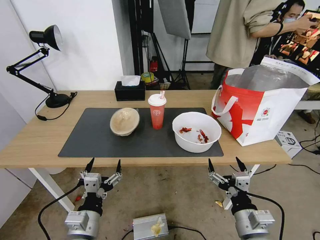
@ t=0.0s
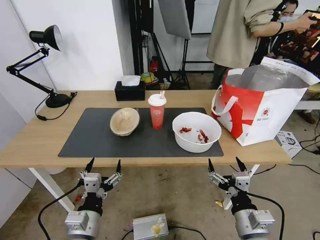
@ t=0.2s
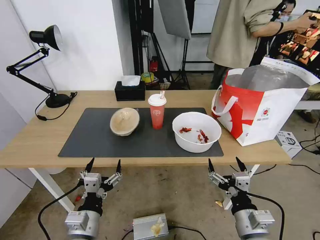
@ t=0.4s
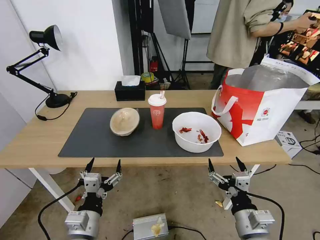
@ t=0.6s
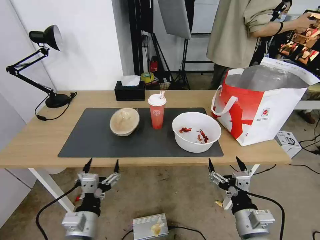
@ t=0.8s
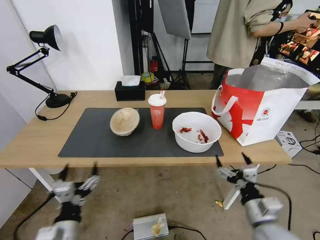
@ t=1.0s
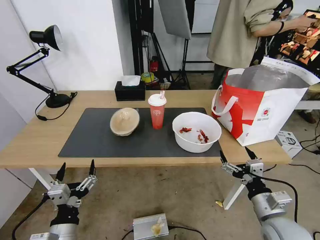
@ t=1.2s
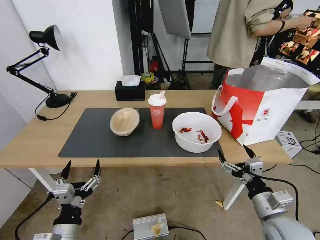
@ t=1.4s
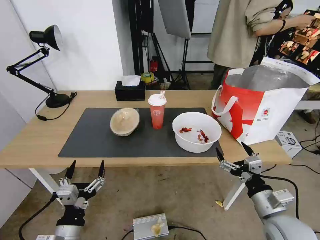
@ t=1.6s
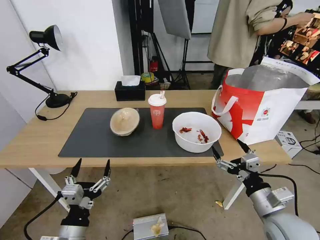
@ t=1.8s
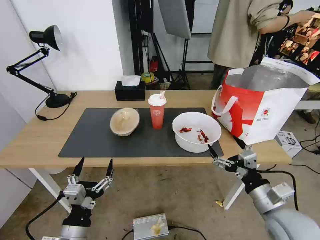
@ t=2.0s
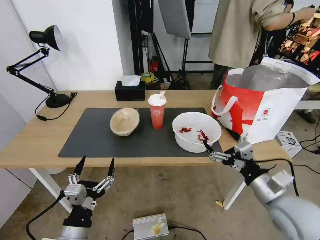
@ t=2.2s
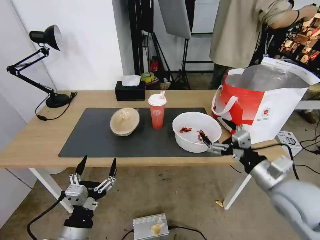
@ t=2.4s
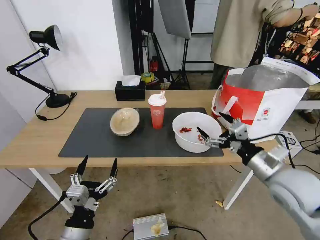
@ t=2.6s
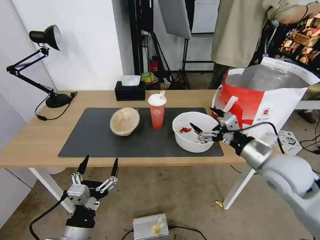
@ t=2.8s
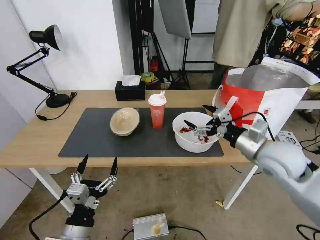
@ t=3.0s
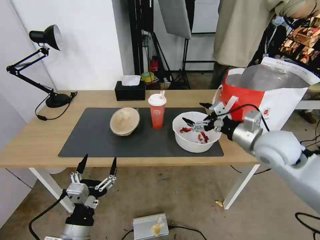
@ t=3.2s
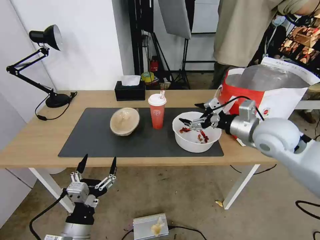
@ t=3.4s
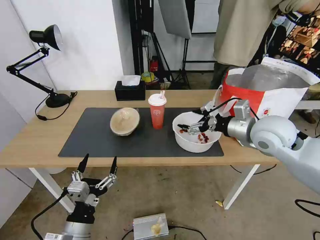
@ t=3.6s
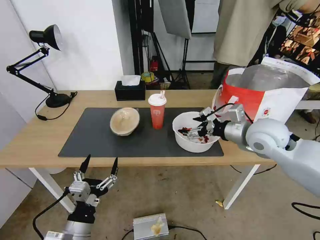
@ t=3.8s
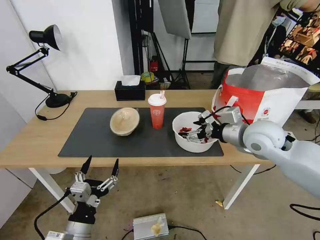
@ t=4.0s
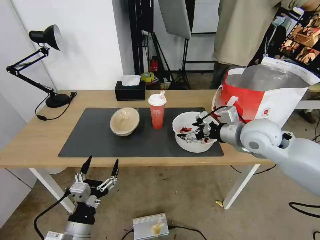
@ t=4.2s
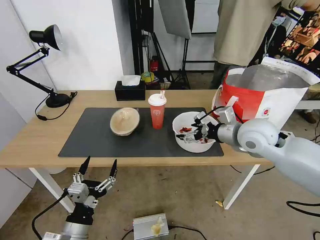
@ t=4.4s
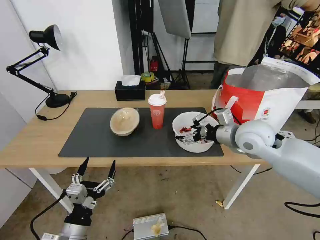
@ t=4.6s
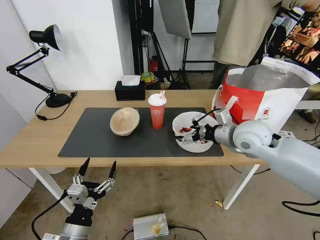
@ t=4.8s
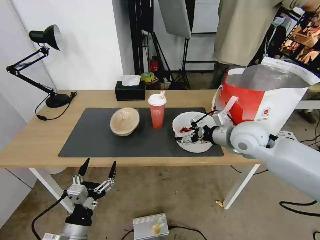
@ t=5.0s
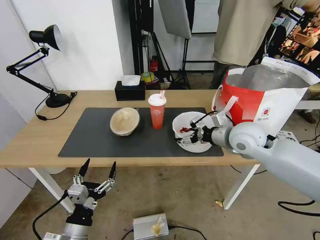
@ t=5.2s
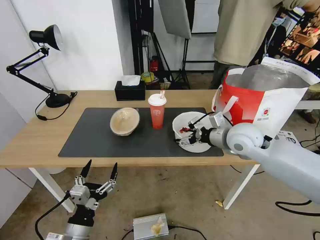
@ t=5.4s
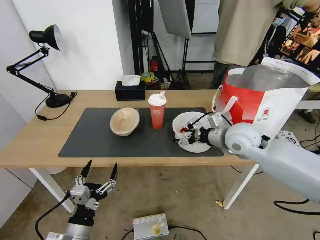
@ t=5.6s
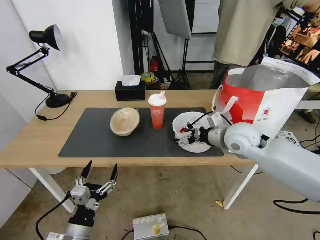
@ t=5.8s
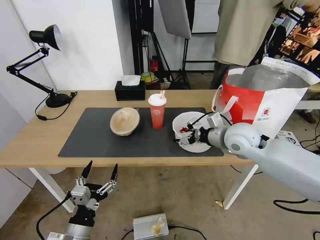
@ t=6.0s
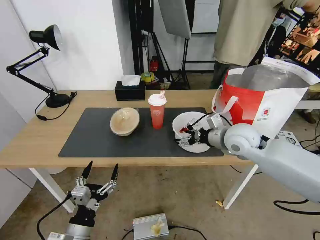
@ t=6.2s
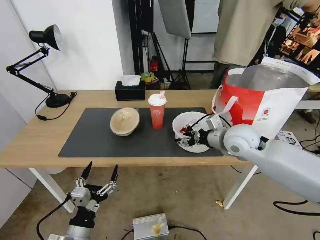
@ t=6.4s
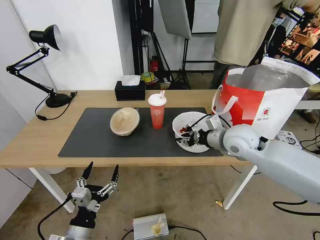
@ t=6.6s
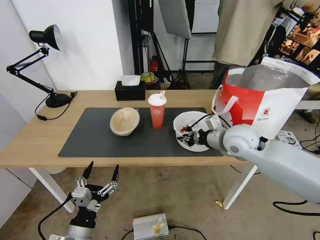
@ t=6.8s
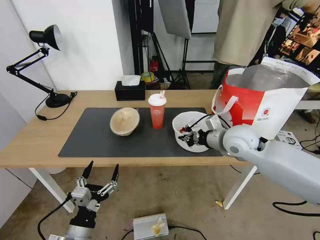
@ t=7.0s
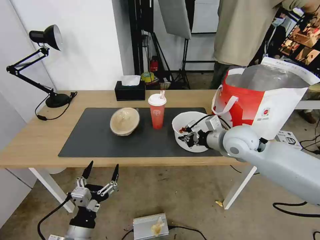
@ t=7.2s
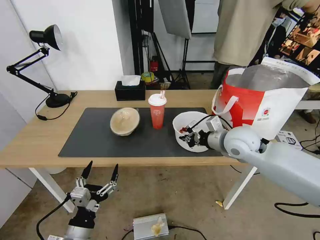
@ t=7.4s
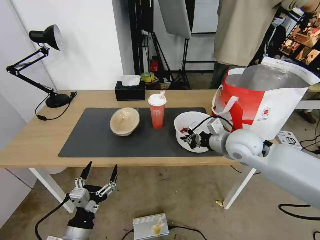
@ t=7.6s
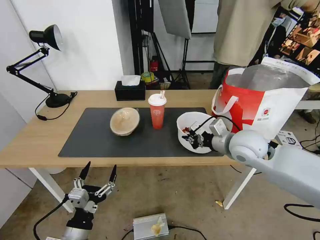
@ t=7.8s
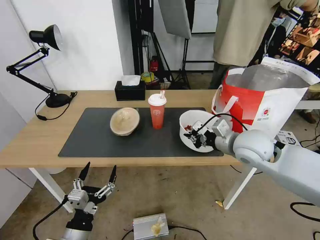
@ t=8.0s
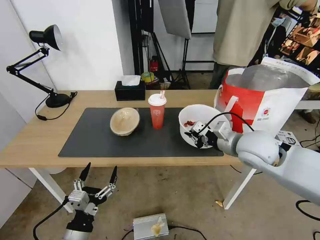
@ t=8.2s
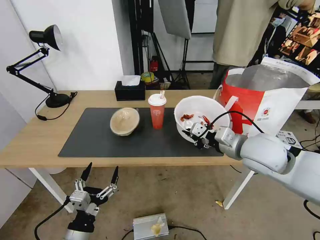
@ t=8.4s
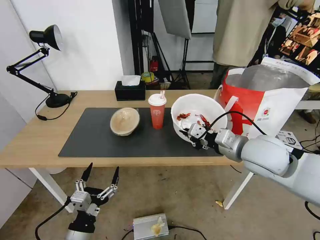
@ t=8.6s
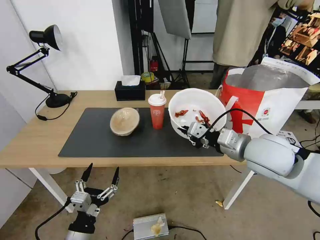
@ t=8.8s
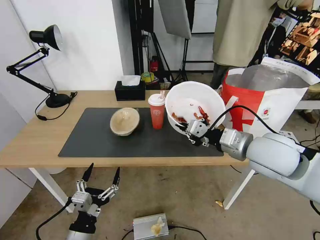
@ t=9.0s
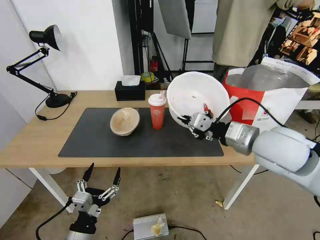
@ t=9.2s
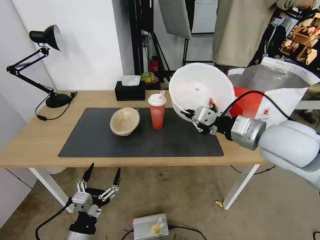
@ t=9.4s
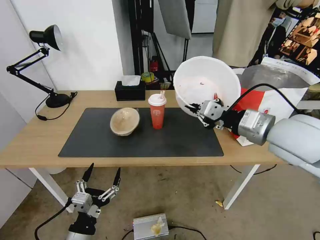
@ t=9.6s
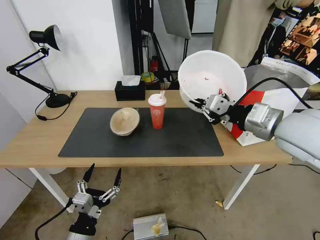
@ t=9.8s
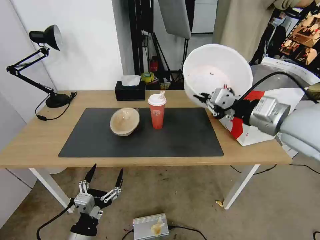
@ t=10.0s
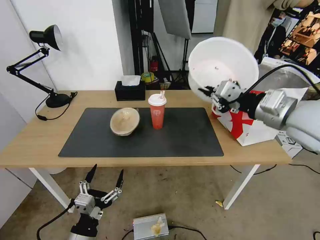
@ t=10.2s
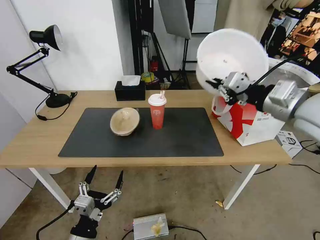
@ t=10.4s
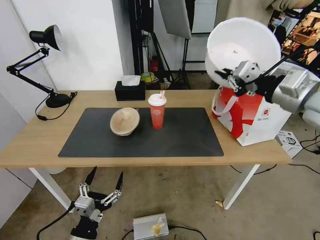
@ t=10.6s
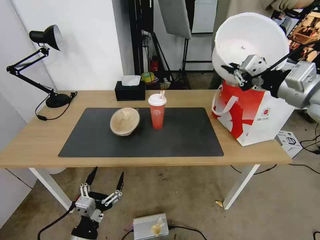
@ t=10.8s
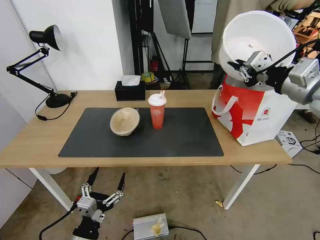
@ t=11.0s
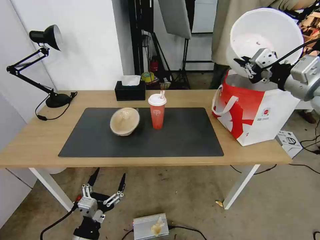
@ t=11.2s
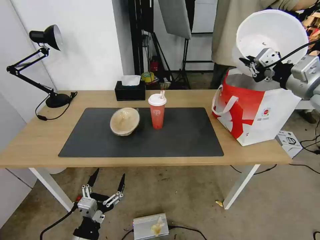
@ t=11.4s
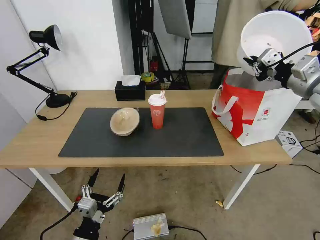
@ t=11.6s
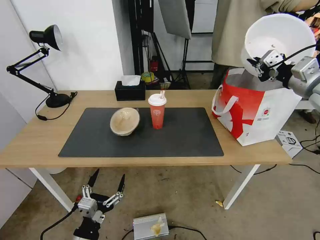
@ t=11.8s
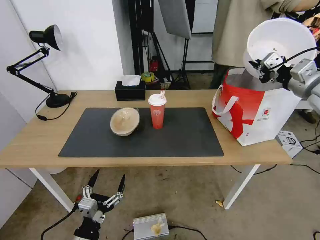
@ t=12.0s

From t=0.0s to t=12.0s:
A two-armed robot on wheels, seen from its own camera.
Task of the whole recording: Pick up the trash from the table and place it into the takeout bag.
From t=1.6s to t=3.0s: The right gripper moves forward and upward, roughly 20 cm.
From t=3.0s to t=4.4s: The right gripper shifts roughly 5 cm forward.
From t=4.4s to t=6.0s: The grippers move only a little.
From t=6.0s to t=7.6s: The right gripper closes its fingers.
From t=7.6s to t=9.0s: The right gripper shifts some 10 cm backward and upward.
From t=9.0s to t=10.4s: The right gripper moves upward and to the right, some 10 cm.
From t=10.4s to t=12.0s: The right gripper is displaced to the right and forward by about 15 cm.

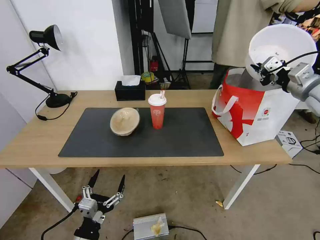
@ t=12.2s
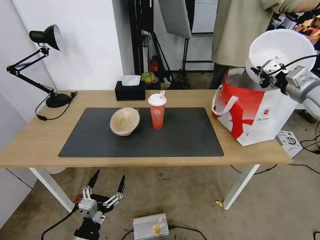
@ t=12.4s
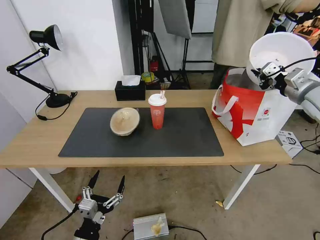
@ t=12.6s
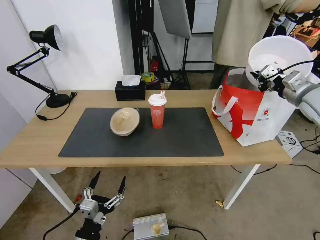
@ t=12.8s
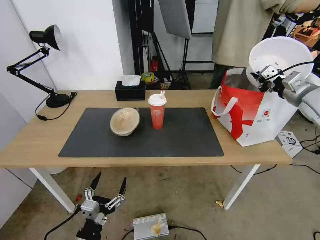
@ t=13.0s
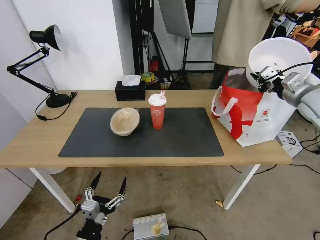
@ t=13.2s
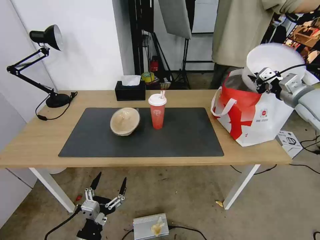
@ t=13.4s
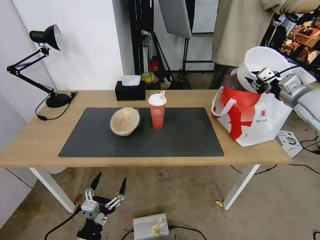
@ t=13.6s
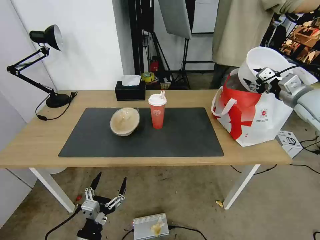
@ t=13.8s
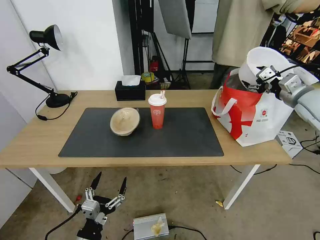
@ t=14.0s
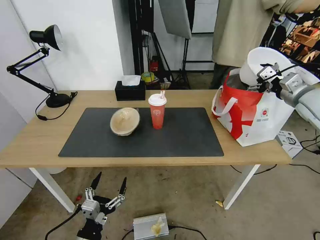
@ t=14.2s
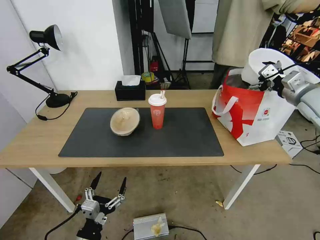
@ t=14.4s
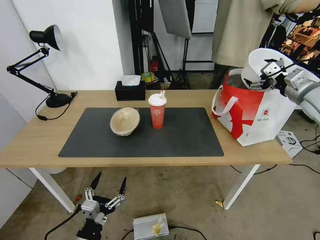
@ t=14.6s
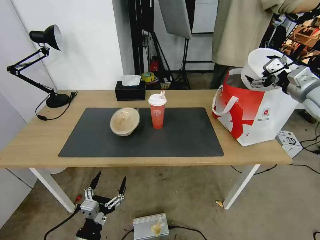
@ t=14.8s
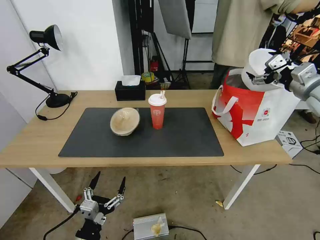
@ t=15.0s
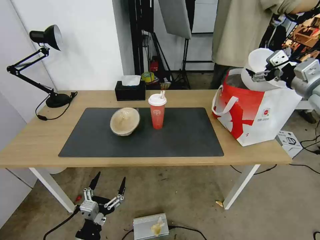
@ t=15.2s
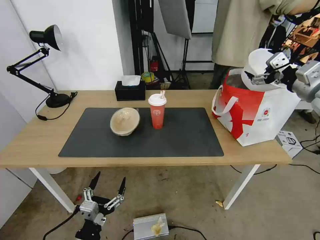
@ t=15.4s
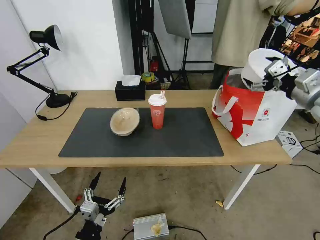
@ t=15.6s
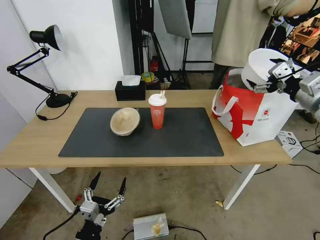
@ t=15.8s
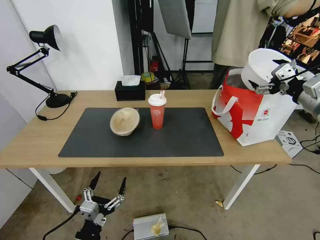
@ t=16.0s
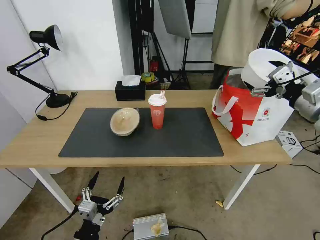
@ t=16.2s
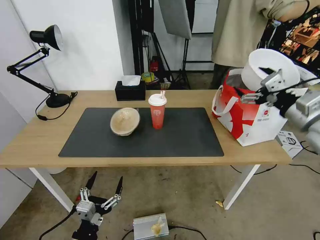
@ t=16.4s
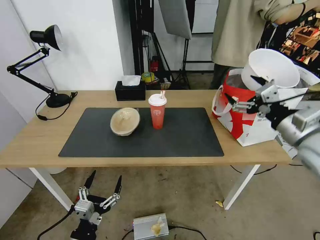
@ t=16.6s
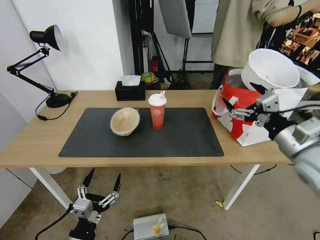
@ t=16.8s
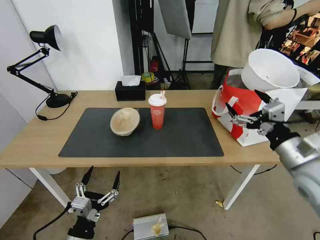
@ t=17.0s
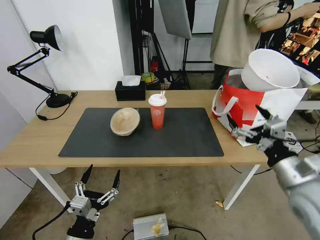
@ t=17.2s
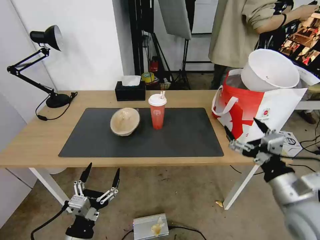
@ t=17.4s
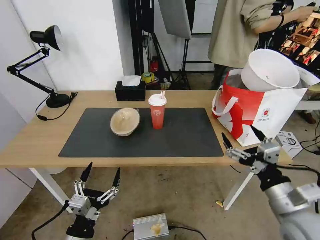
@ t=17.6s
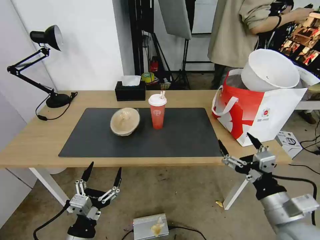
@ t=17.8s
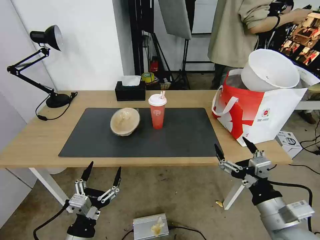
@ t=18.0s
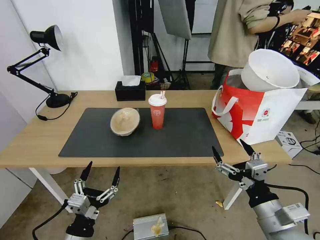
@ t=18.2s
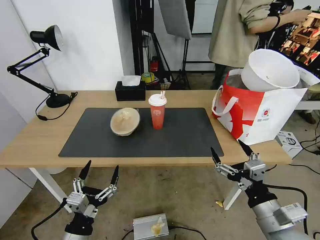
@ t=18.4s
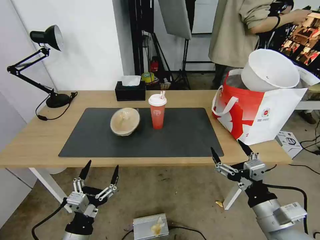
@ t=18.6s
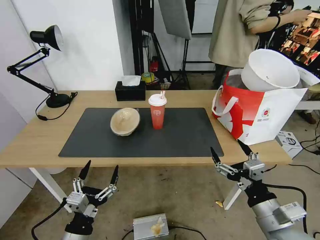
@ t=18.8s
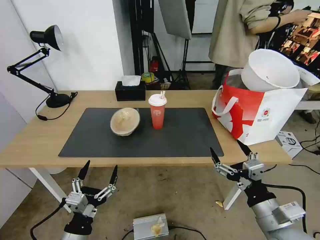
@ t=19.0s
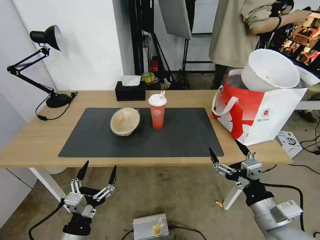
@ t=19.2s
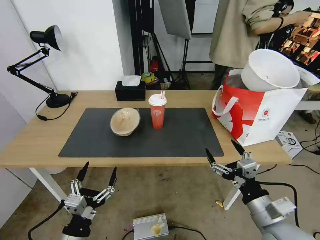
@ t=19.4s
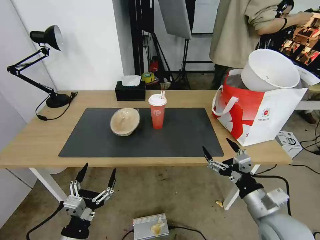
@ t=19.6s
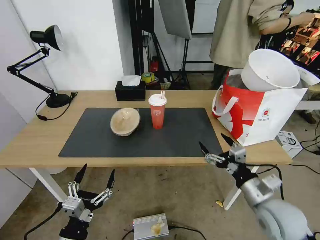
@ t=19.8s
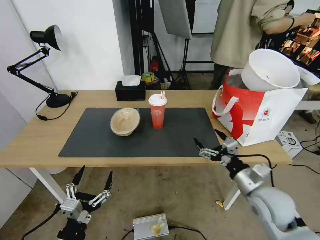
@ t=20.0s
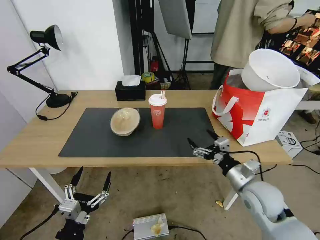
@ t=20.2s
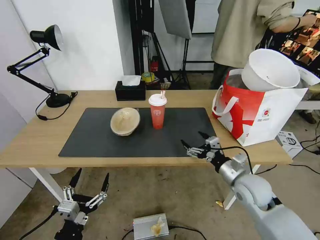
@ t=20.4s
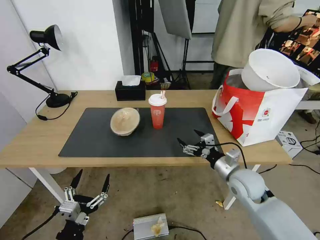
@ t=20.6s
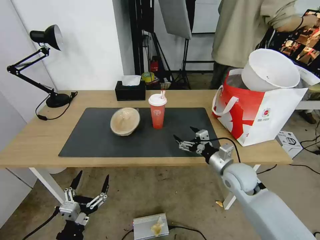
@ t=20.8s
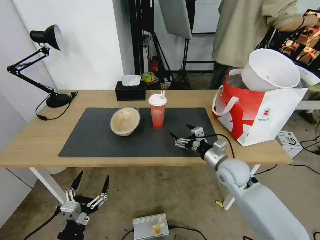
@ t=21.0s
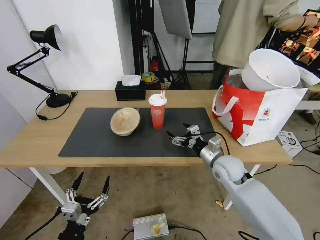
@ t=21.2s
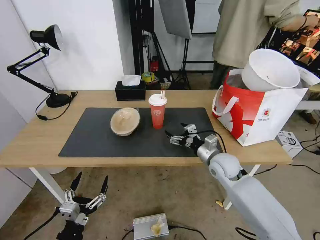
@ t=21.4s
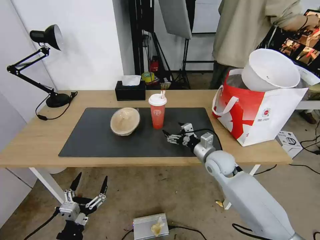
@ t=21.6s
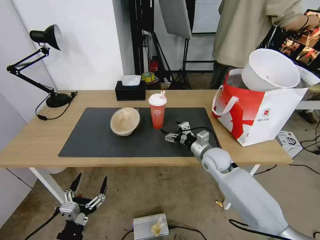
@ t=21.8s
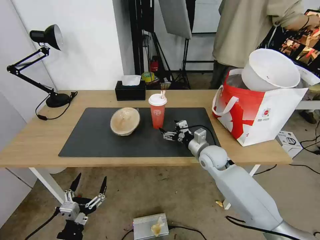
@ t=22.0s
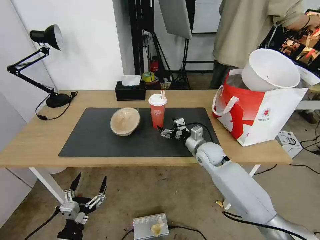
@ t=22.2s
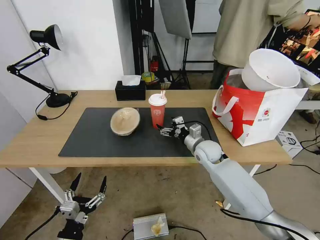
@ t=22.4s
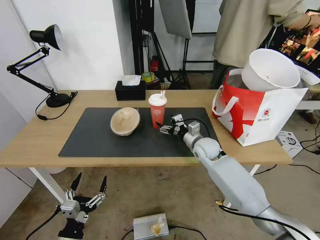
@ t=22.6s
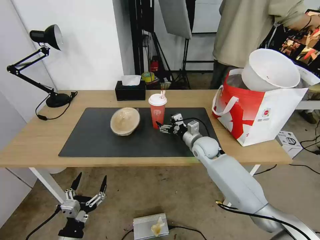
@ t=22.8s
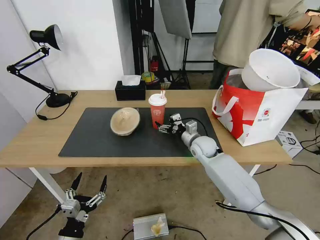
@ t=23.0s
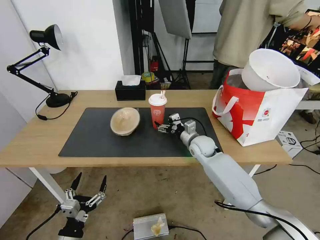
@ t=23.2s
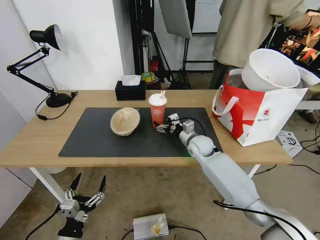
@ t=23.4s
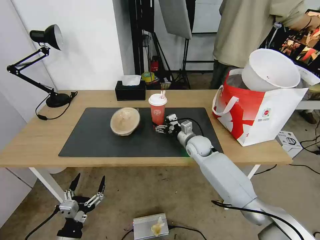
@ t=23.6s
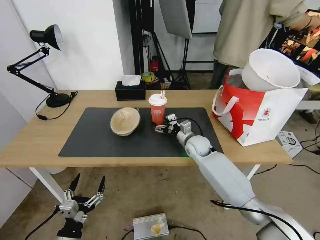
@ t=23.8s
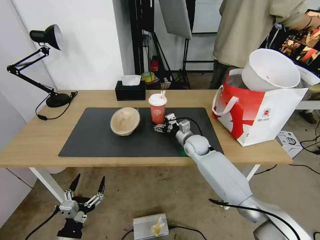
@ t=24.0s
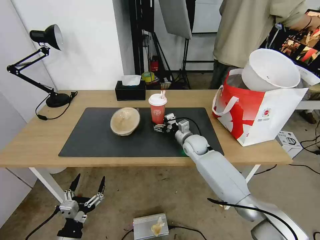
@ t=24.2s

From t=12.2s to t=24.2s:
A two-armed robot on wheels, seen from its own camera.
Task of the whole recording: Pick up the trash from the table and place it into the takeout bag.
From t=12.2s to t=13.8s: The right gripper opens up.
From t=13.8s to t=15.2s: The right gripper ends up approximately 5 cm from where it was, and opens up.
From t=15.2s to t=16.6s: The right gripper shifts about 15 cm backward, to the left and downward.
From t=16.6s to t=18.2s: The right gripper is displaced backward, downward and to the left by approximately 25 cm.
From t=18.2s to t=19.8s: The right gripper travels forward by about 5 cm.
From t=19.8s to t=21.2s: The right gripper shifts approximately 15 cm forward and to the left.
From t=21.2s to t=22.6s: The right gripper travels forward and to the left by about 10 cm.
From t=22.6s to t=24.2s: The right gripper shifts by approximately 5 cm.
